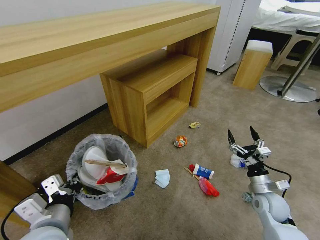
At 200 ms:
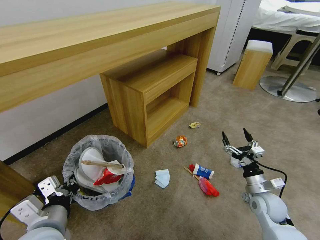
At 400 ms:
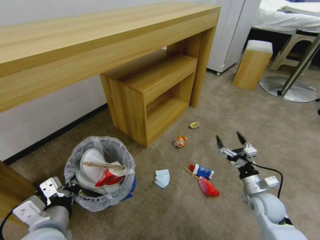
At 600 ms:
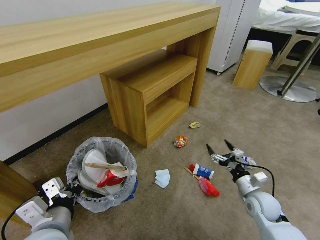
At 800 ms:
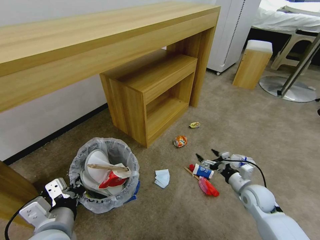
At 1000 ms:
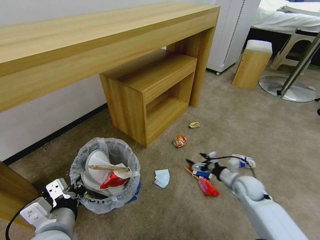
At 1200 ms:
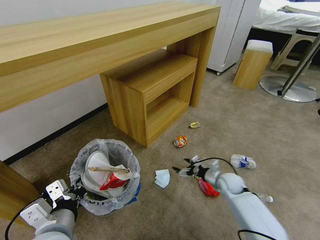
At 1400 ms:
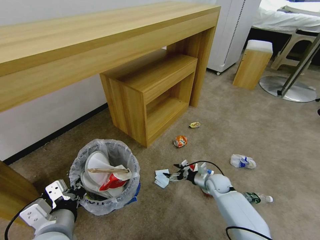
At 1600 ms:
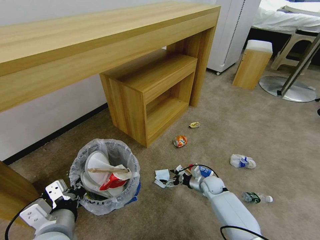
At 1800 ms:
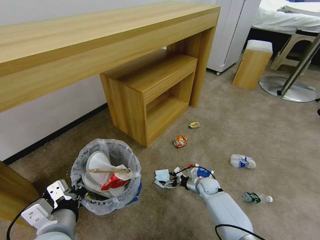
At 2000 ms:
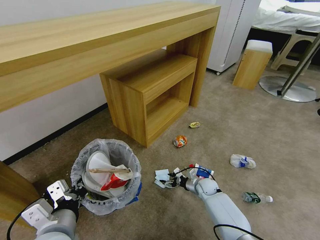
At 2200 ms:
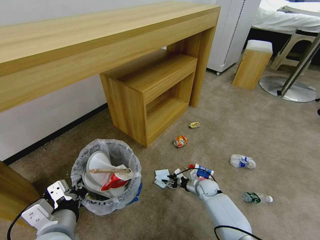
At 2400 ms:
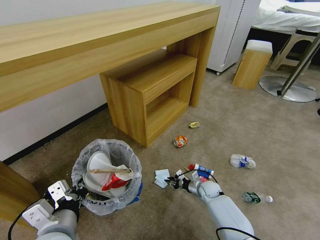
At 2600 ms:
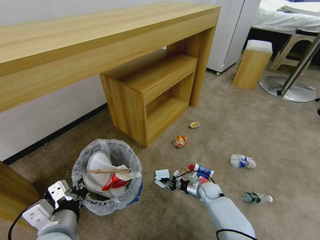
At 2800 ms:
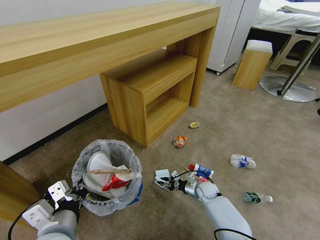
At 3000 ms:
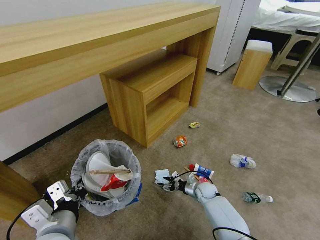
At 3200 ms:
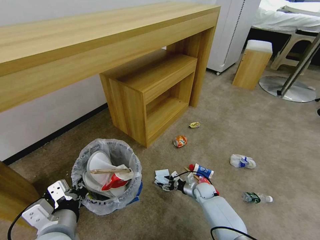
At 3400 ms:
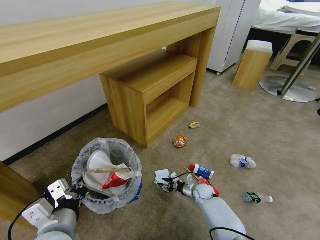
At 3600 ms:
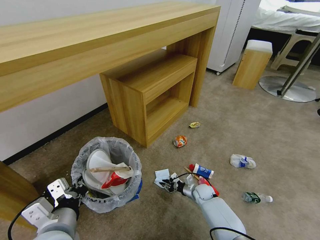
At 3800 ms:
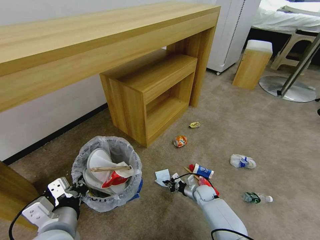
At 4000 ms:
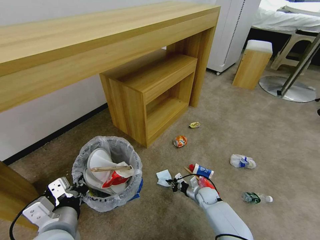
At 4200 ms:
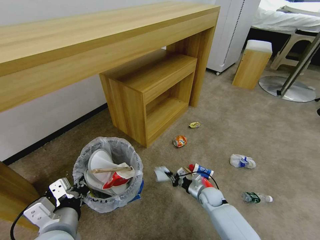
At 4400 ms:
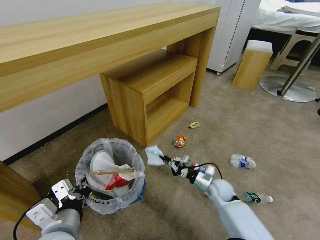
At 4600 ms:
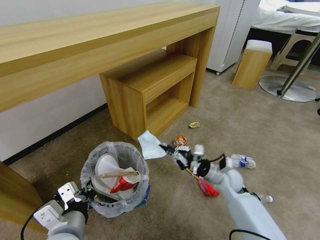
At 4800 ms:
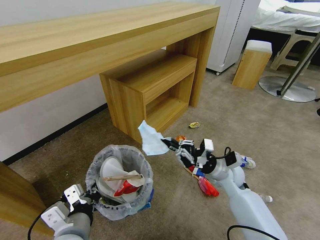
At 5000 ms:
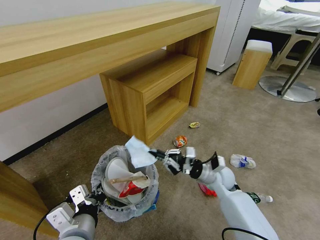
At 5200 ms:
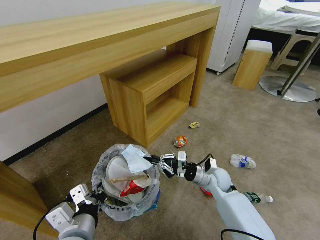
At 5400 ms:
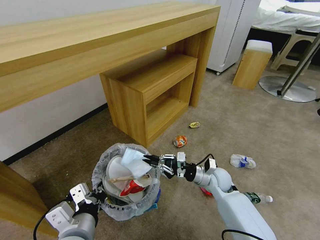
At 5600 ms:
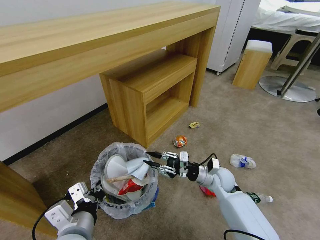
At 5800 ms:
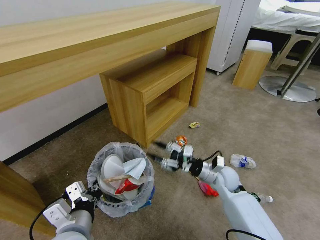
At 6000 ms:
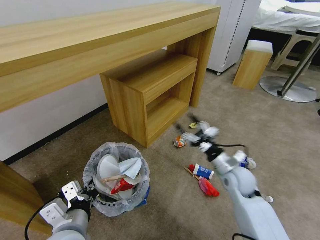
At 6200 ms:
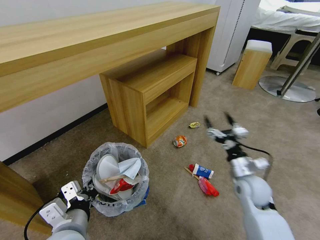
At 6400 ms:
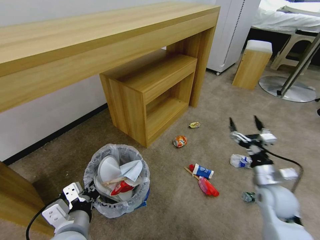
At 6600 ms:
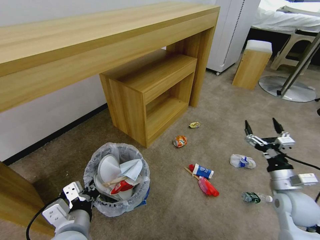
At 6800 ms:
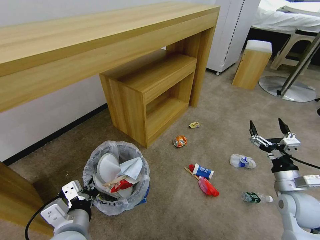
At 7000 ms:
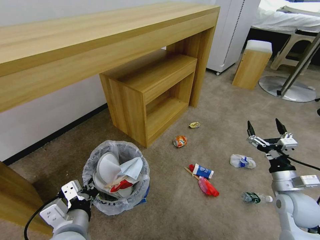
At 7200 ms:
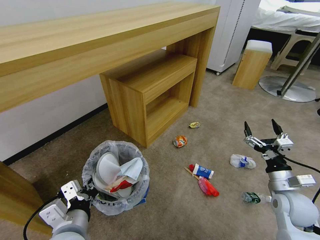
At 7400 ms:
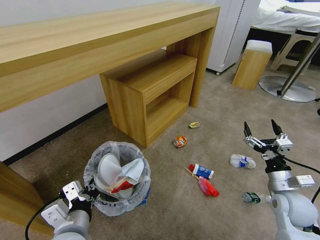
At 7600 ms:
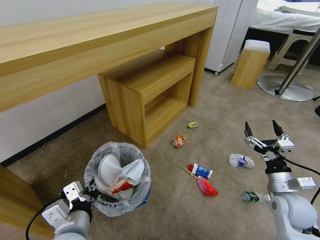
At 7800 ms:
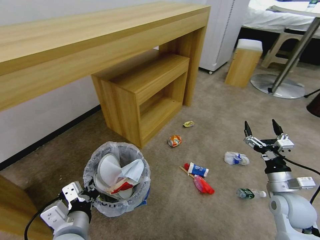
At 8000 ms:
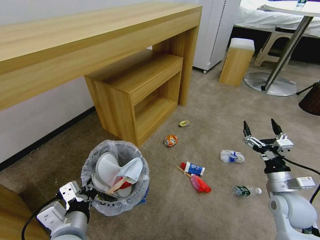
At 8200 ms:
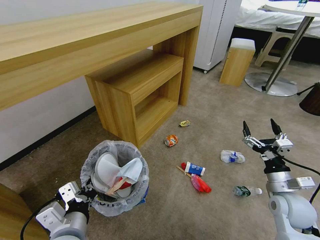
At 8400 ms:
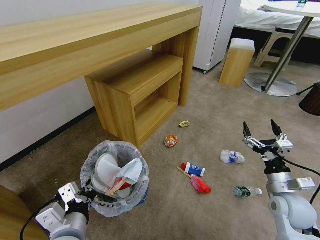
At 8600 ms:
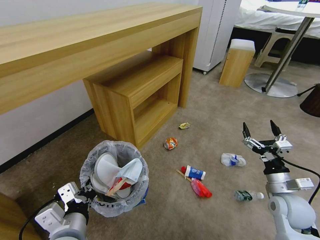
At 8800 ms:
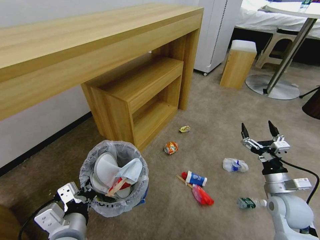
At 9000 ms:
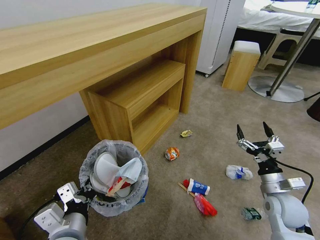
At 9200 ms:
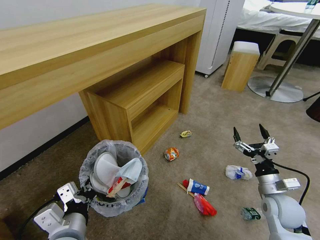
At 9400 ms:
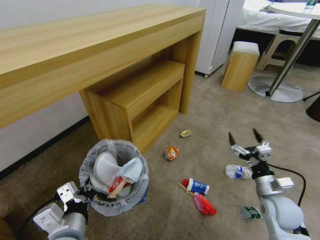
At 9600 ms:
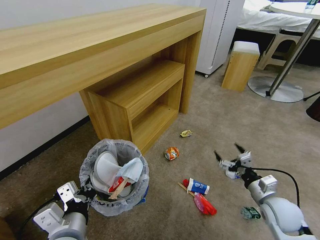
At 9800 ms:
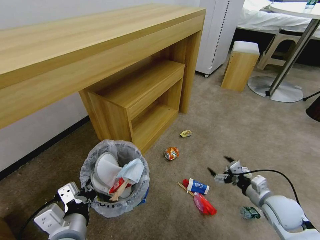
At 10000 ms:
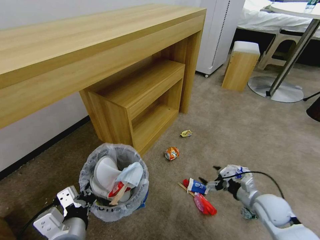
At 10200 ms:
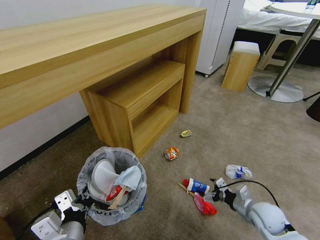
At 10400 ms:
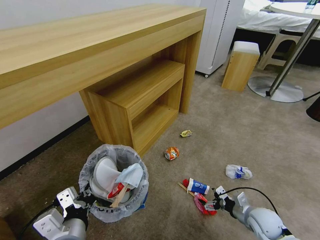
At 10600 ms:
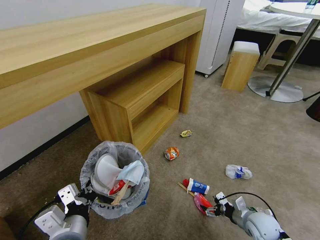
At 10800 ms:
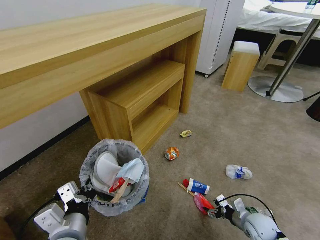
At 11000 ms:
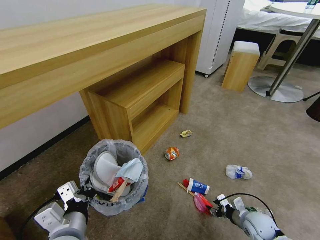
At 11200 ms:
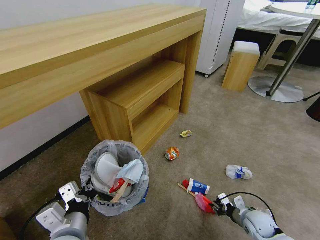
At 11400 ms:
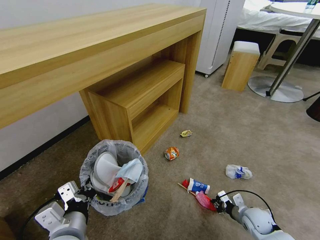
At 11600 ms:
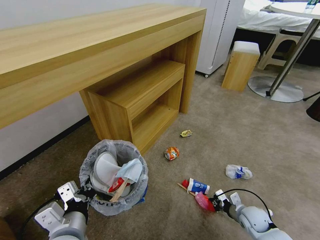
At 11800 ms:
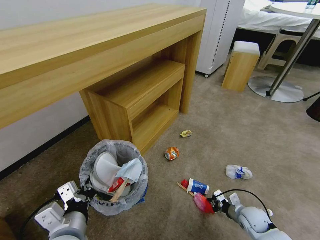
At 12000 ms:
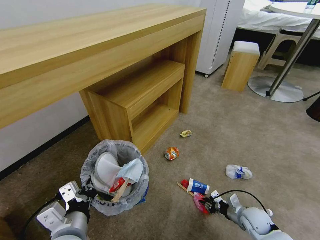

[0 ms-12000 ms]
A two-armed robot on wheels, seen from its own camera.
Task of the whole recording: Pick up the trash bin and place the garbage on the floor into it.
0 ms to 1600 ms: The right gripper is displaced to the left, downward and forward by about 20 cm.
1600 ms to 3000 ms: The right gripper closes its fingers.
3000 ms to 4400 ms: The right gripper goes about 10 cm upward, and closes.
4400 ms to 6000 ms: The right gripper swings up and down, roughly 10 cm each way, with 2 reversals, and opens its fingers.
6000 ms to 7600 ms: The right gripper heads to the right and backward, covering roughly 15 cm.
9000 ms to 10400 ms: The right gripper moves downward, some 10 cm.
10400 ms to 12000 ms: The right gripper is displaced downward by roughly 5 cm, and closes its fingers.

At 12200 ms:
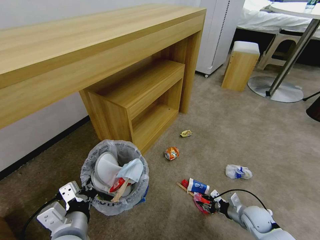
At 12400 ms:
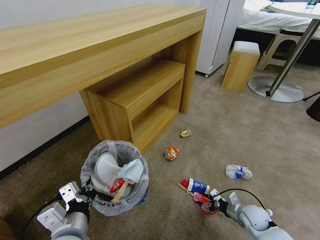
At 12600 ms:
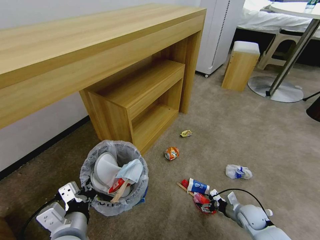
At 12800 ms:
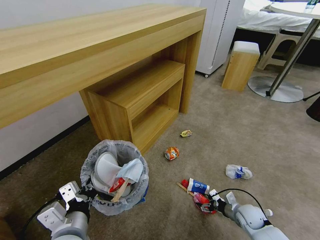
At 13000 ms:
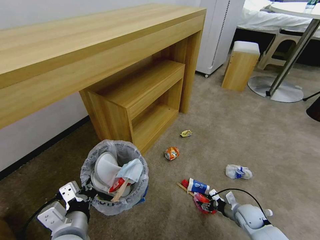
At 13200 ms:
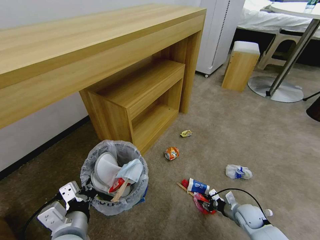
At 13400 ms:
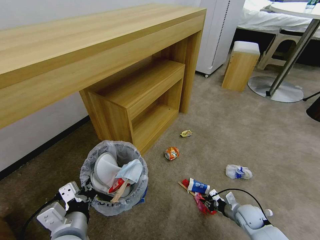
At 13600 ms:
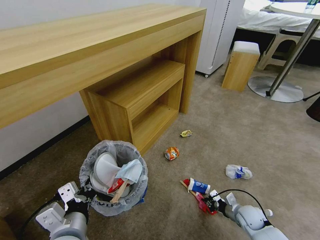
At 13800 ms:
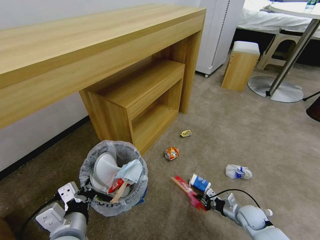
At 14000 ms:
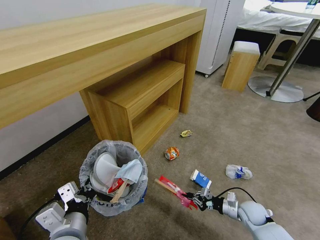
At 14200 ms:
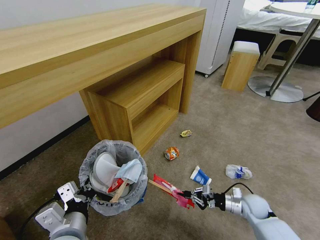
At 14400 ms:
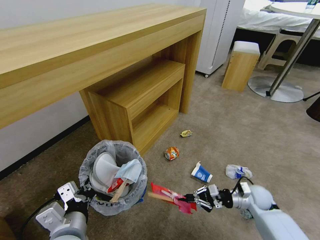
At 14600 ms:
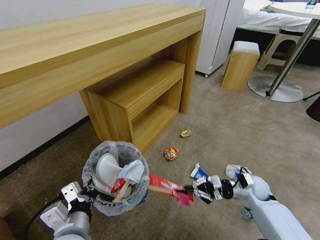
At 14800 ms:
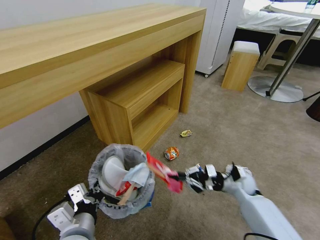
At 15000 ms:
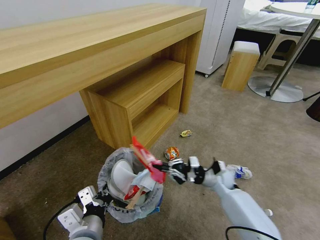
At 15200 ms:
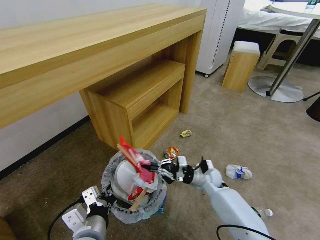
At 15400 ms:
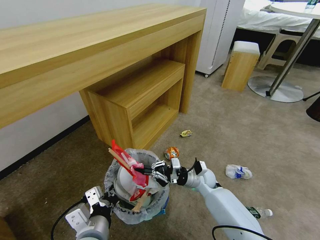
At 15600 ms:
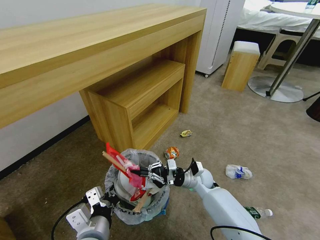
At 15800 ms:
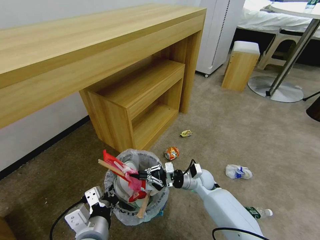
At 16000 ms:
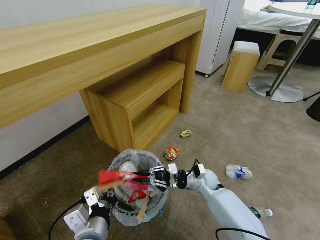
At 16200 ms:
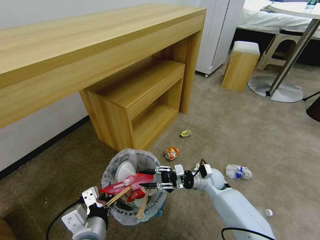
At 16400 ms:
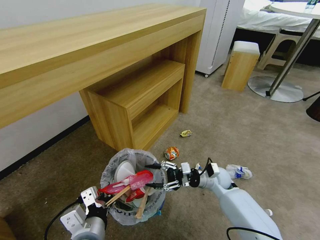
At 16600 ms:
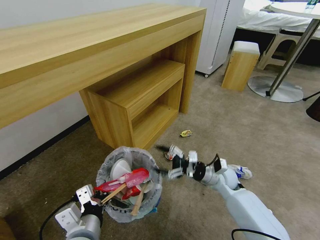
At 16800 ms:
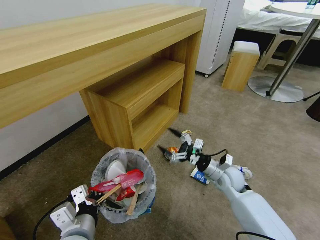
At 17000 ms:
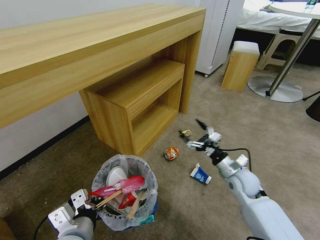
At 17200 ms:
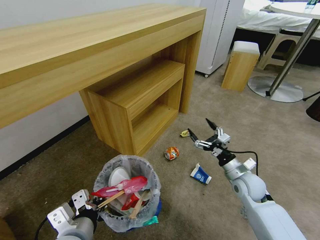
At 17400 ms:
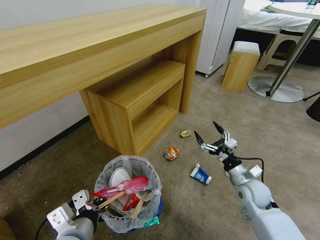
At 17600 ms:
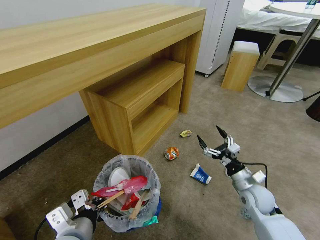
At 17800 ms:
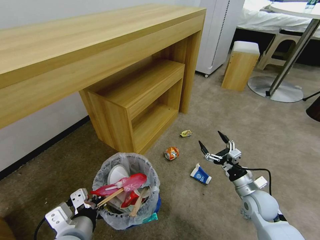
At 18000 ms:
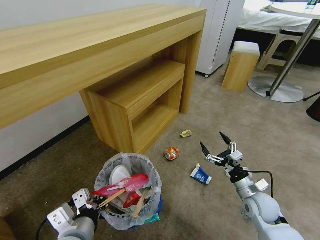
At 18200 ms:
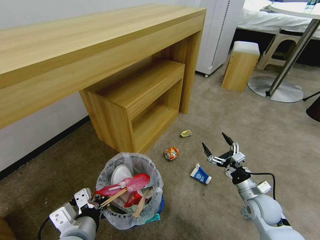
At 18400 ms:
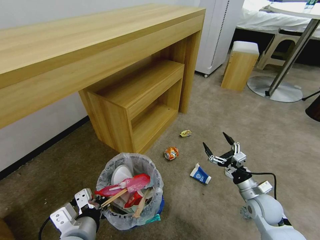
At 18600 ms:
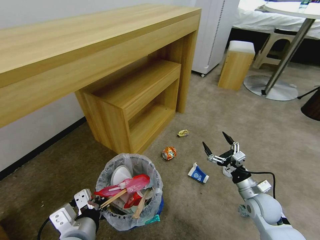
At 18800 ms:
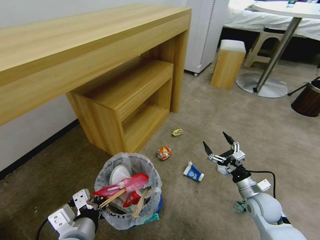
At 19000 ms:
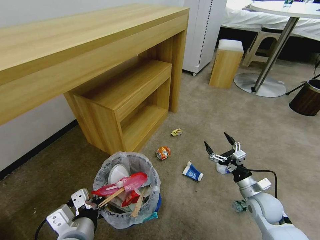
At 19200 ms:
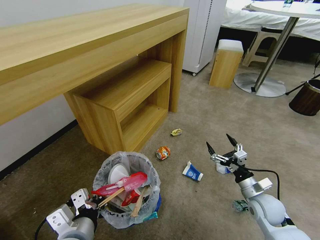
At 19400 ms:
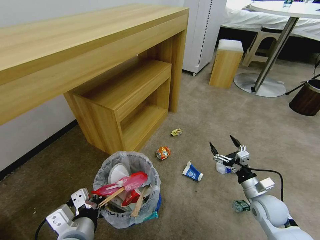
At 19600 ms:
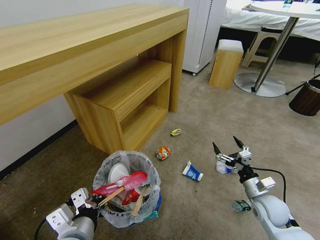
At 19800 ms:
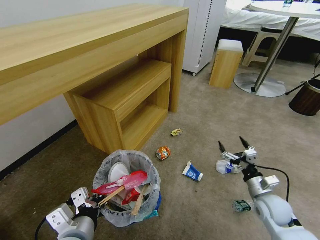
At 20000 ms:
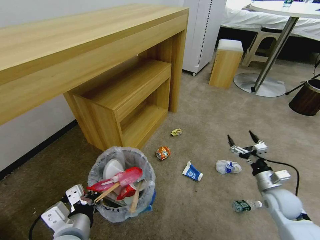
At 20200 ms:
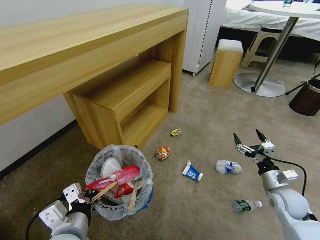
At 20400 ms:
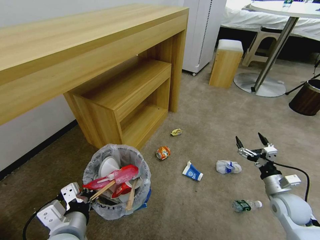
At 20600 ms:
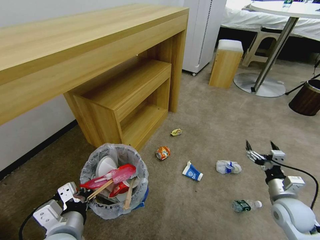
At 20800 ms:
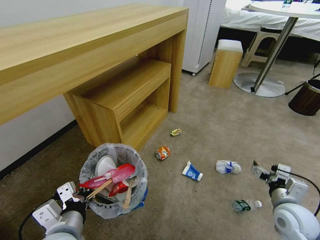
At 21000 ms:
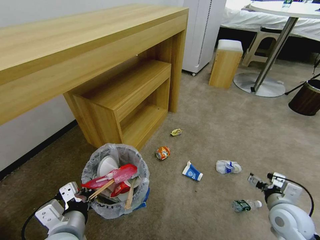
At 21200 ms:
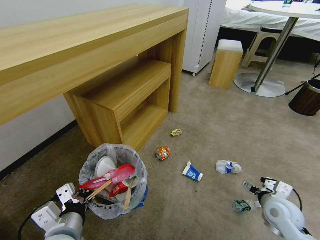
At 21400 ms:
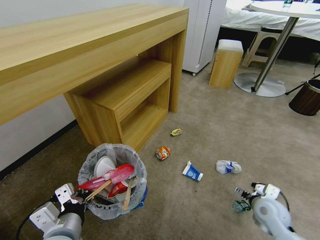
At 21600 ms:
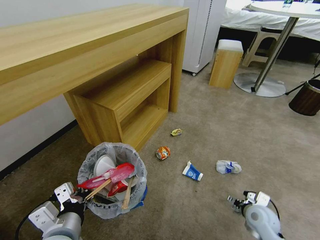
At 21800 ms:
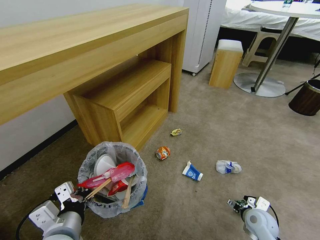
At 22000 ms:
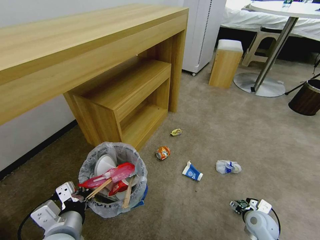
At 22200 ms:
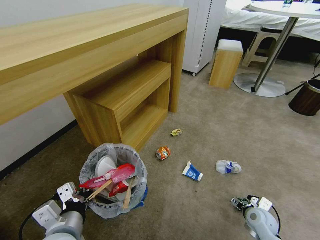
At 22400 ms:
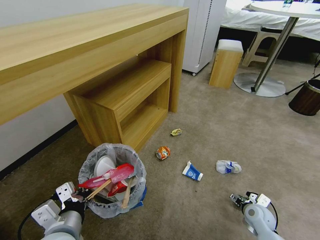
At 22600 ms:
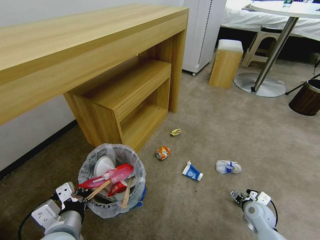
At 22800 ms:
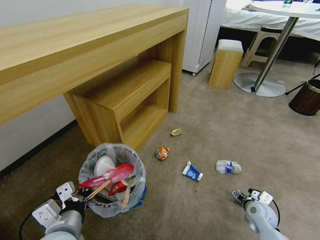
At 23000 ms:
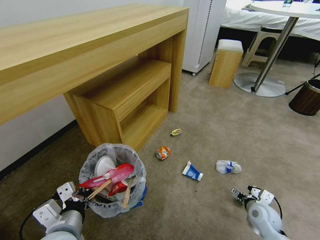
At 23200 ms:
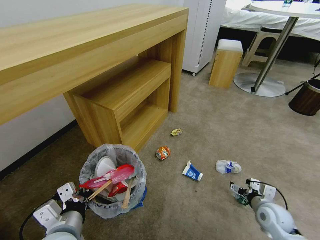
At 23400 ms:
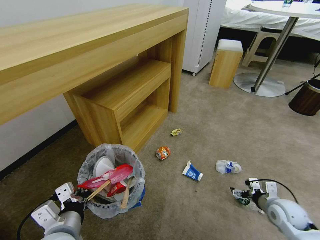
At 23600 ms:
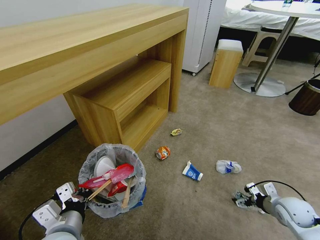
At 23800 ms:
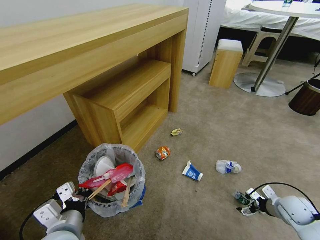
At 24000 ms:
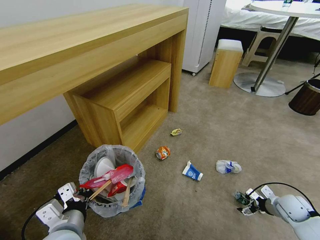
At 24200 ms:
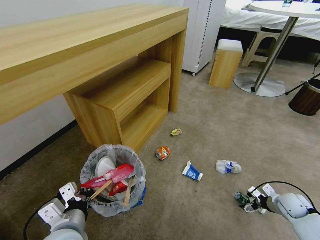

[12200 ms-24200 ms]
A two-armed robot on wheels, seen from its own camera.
Task of the whole recording: Pick up the trash bin and place the garbage on the floor into it.
12200 ms to 13800 ms: The right gripper closes up.
13800 ms to 15200 ms: The right gripper goes about 25 cm to the left, forward and upward.
15200 ms to 16600 ms: The right gripper changes place by some 5 cm, and opens its fingers.
16600 ms to 18200 ms: The right gripper heads backward and to the right, covering roughly 15 cm.
21200 ms to 22600 ms: The right gripper shifts some 10 cm downward.
22600 ms to 24200 ms: The right gripper moves to the right, roughly 15 cm.
